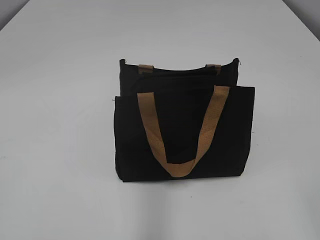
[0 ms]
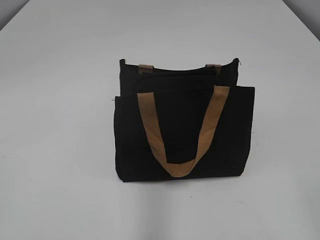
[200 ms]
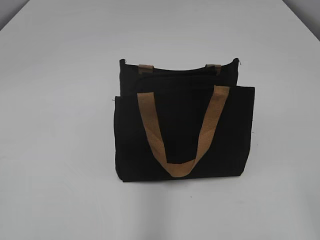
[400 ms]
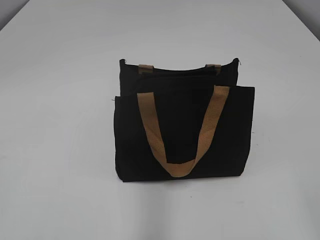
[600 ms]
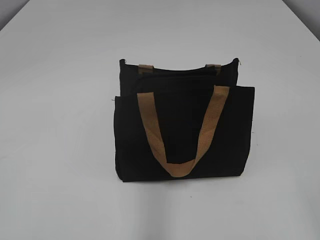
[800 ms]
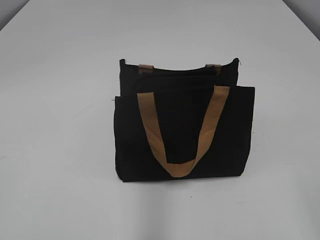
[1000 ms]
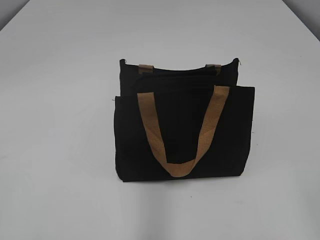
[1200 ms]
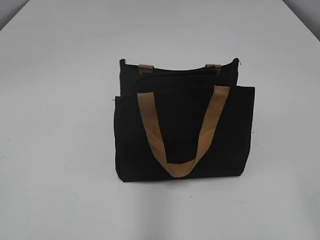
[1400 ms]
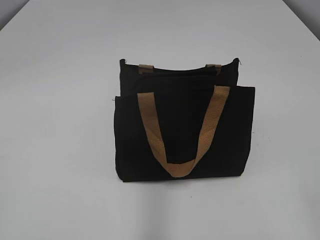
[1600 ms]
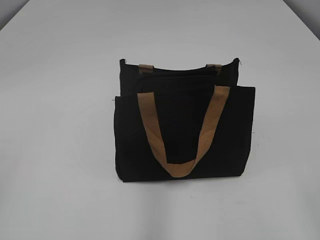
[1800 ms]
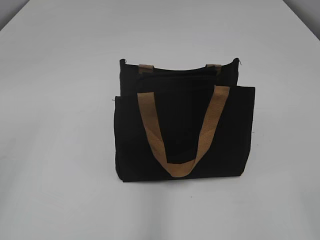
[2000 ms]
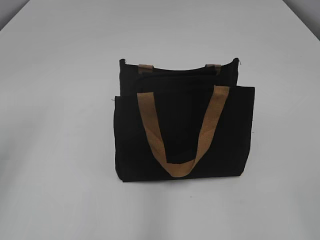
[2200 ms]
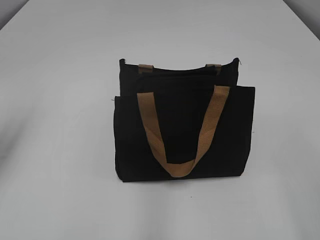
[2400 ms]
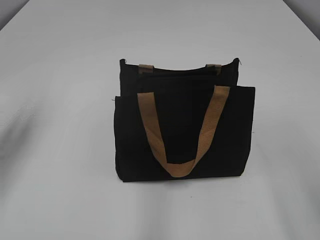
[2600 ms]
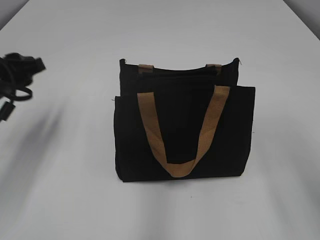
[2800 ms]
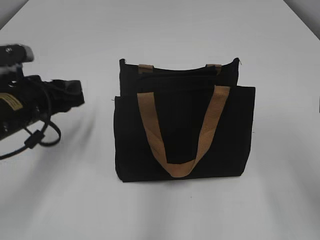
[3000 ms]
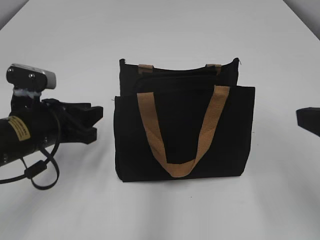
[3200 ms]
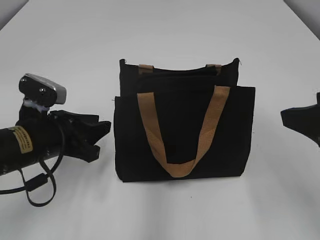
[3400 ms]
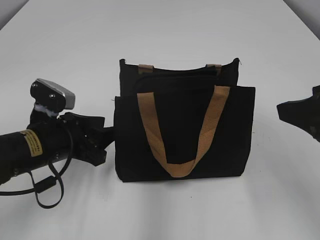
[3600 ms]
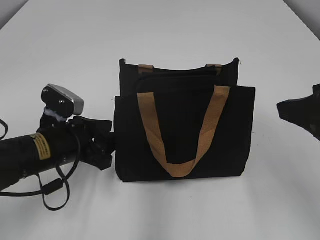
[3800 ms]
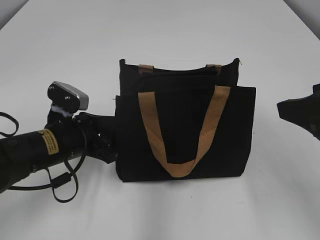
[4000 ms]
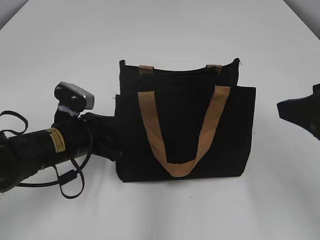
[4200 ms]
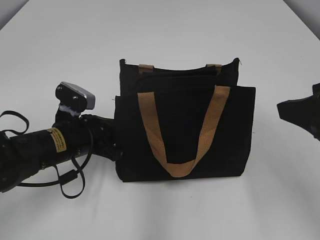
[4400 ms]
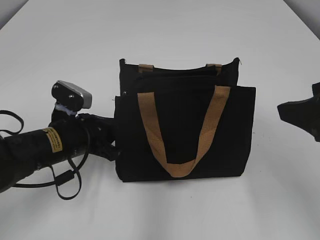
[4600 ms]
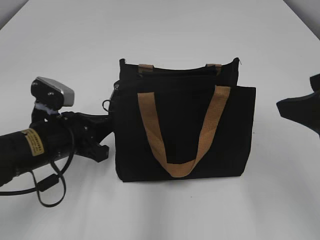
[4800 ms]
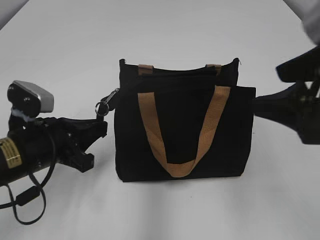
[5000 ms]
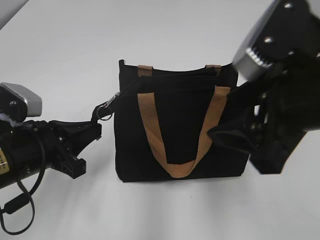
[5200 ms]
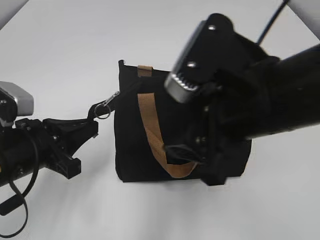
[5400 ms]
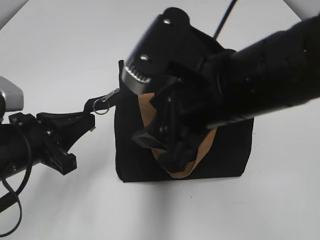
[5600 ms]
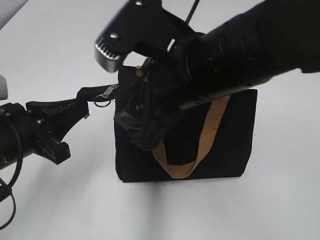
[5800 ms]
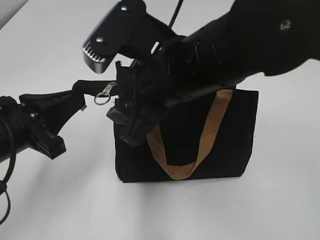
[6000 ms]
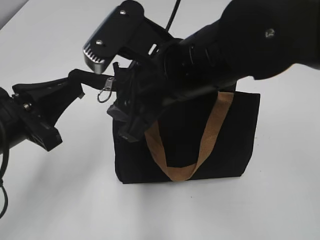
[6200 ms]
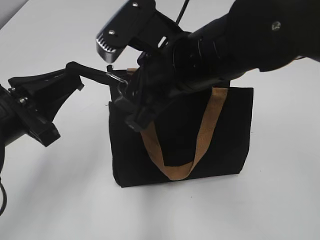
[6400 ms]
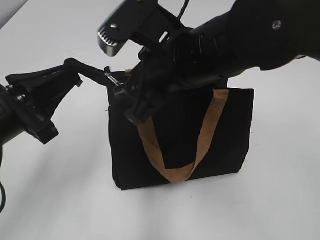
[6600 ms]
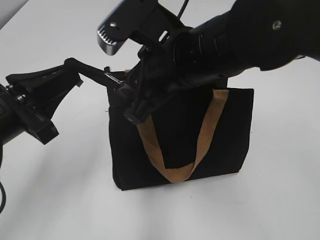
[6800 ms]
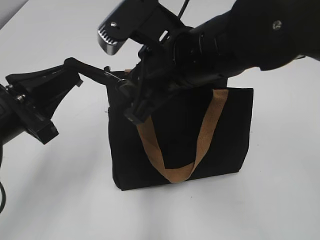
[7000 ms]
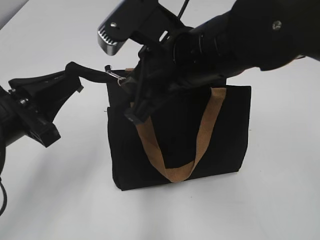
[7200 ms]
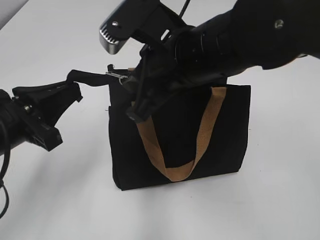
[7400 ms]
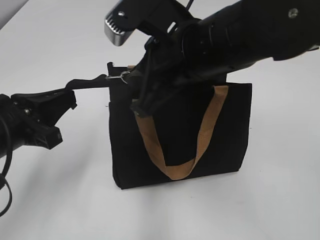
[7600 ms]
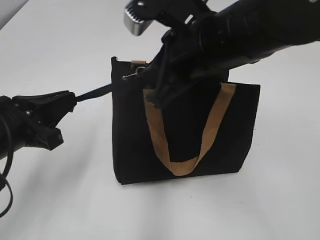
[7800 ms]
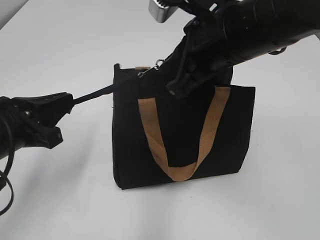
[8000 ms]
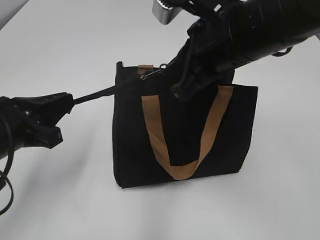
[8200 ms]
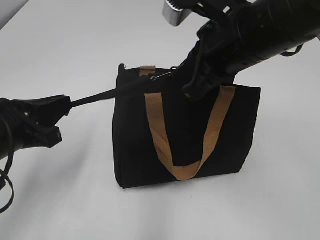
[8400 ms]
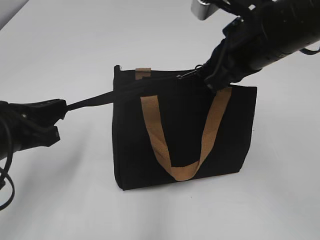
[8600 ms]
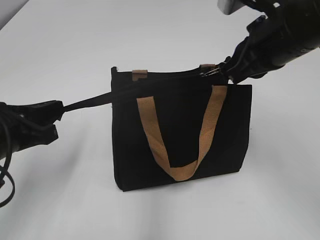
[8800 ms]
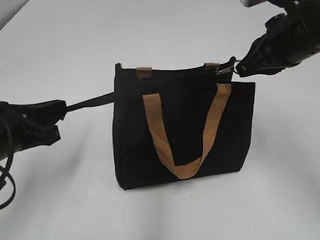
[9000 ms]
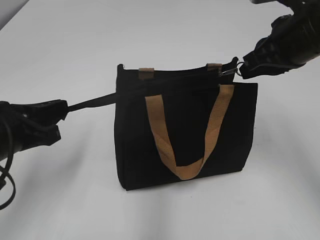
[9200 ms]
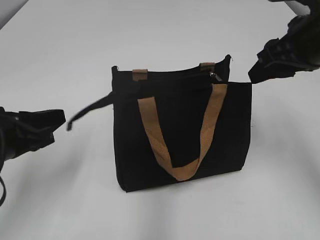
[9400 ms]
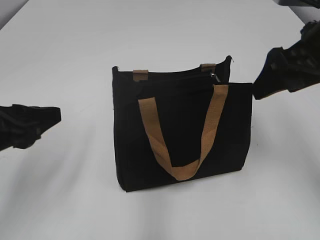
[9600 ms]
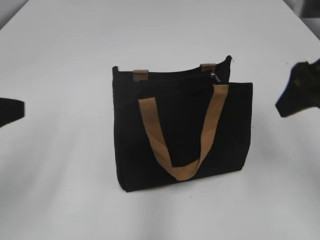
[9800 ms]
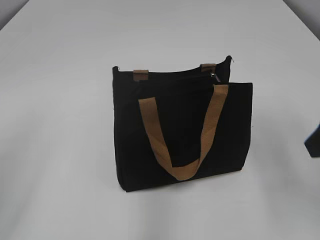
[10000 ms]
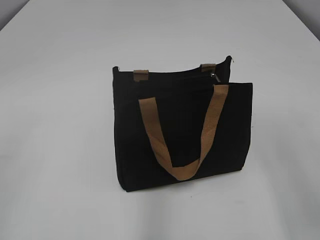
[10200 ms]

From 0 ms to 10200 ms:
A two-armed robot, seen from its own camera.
Step, from 0 ms to 9200 ms: Zip up the bag with your right hand.
From 1400 ms to 3000 ms: The right gripper is displaced forward by approximately 15 cm; the left gripper shifts about 30 cm forward.
From 3000 ms to 4400 ms: The left gripper travels to the right and downward by roughly 10 cm, and opens, then closes once more; the right gripper goes approximately 5 cm forward.
From 4400 ms to 5800 ms: The right gripper moves to the left, approximately 20 cm, while the left gripper is displaced backward and upward by approximately 10 cm, and closes its fingers.
From 5800 ms to 7200 ms: The right gripper moves some 5 cm, and closes its fingers.
From 7200 ms to 8800 ms: The right gripper travels to the right by about 10 cm.
From 8800 ms to 10200 ms: The left gripper heads upward, backward and to the left, covering roughly 20 cm, and opens up, while the right gripper travels backward and to the right by some 15 cm, and opens its fingers.

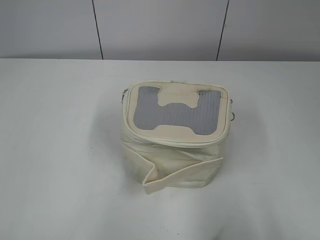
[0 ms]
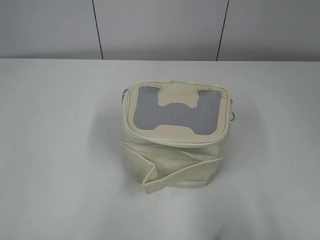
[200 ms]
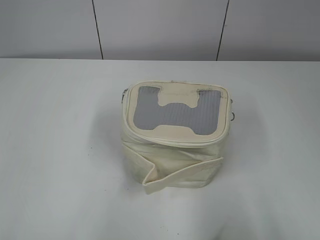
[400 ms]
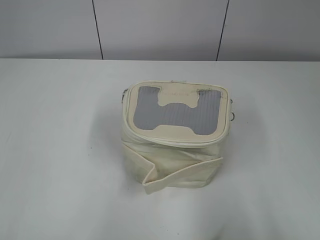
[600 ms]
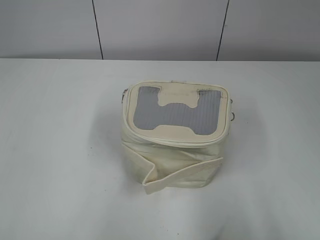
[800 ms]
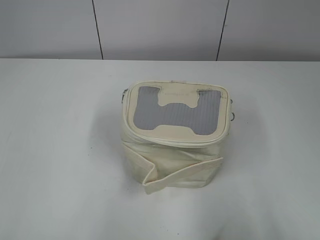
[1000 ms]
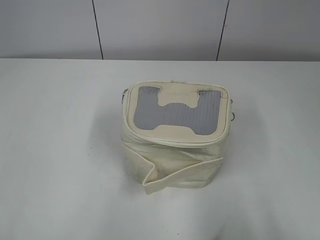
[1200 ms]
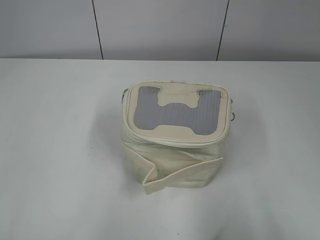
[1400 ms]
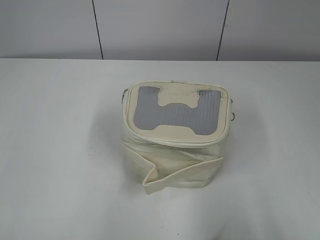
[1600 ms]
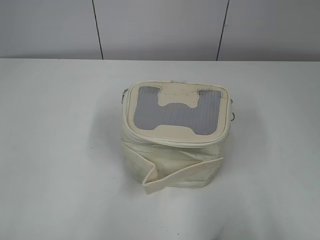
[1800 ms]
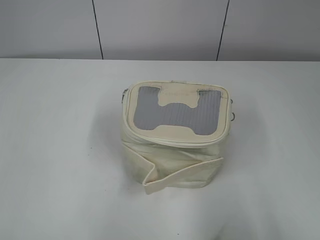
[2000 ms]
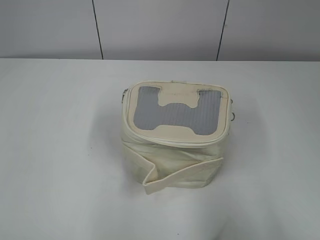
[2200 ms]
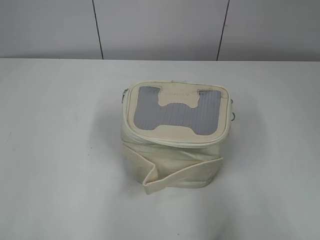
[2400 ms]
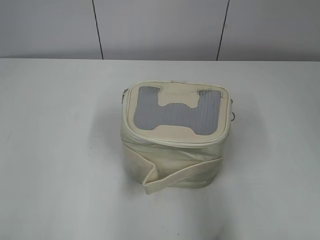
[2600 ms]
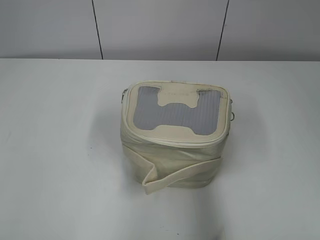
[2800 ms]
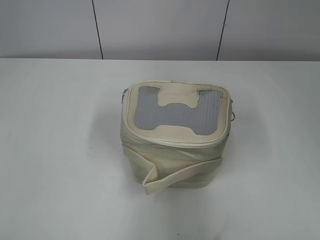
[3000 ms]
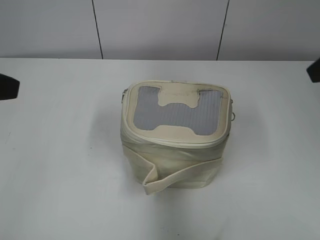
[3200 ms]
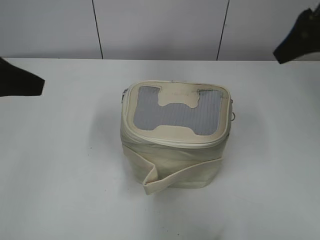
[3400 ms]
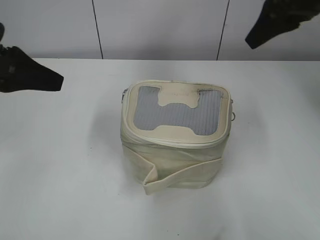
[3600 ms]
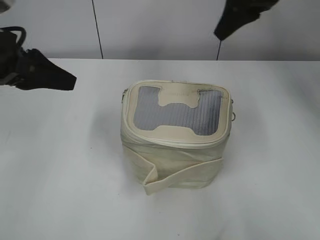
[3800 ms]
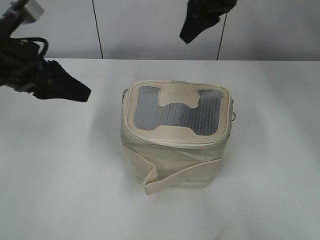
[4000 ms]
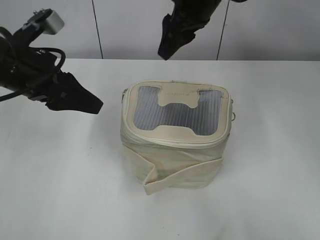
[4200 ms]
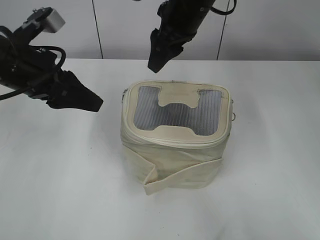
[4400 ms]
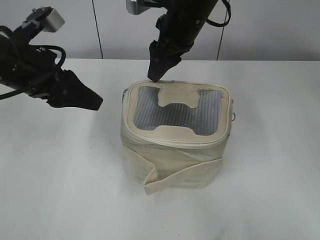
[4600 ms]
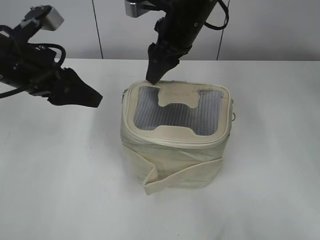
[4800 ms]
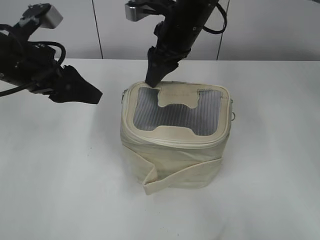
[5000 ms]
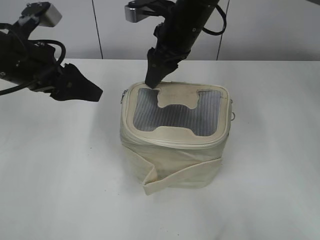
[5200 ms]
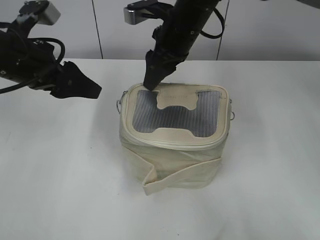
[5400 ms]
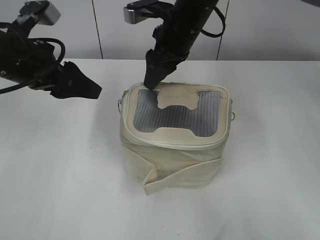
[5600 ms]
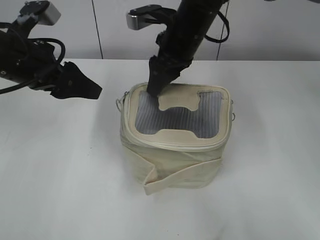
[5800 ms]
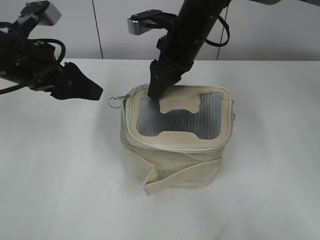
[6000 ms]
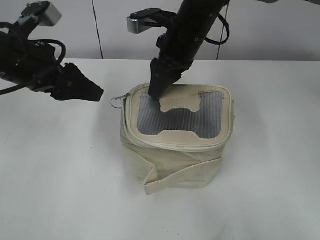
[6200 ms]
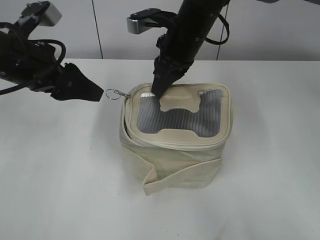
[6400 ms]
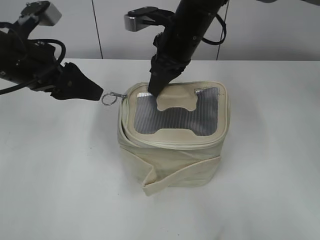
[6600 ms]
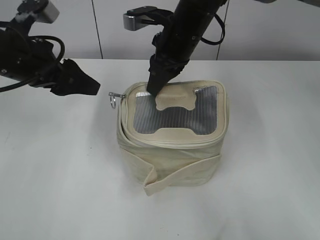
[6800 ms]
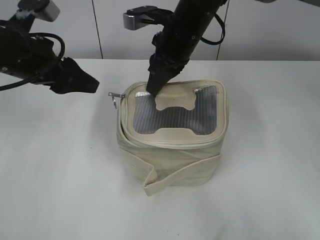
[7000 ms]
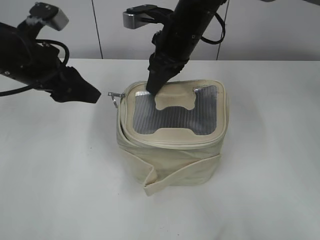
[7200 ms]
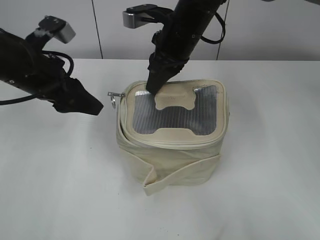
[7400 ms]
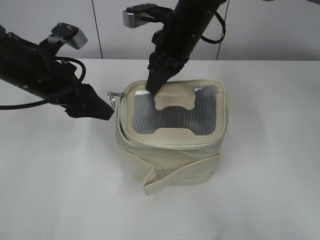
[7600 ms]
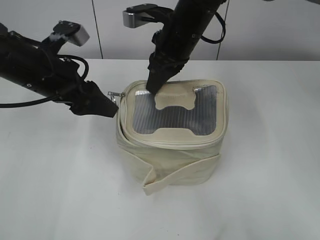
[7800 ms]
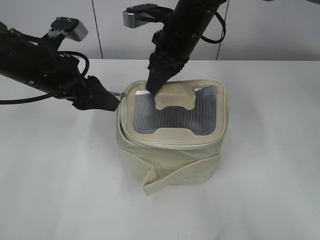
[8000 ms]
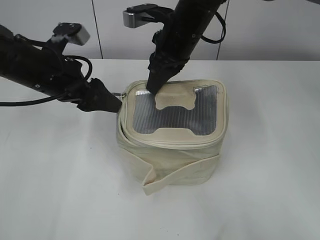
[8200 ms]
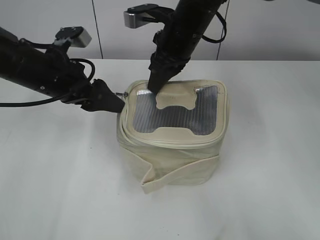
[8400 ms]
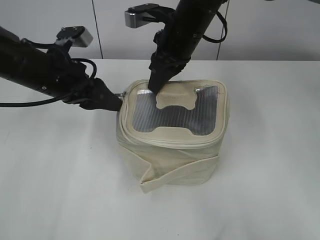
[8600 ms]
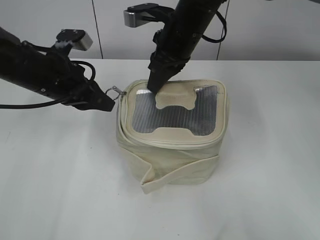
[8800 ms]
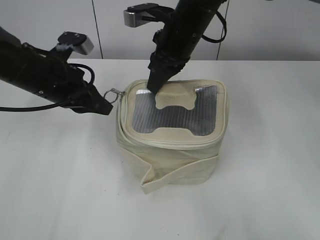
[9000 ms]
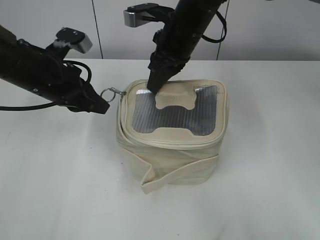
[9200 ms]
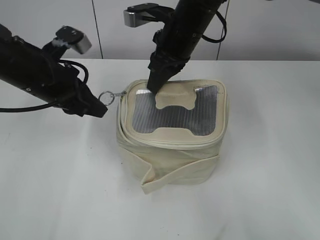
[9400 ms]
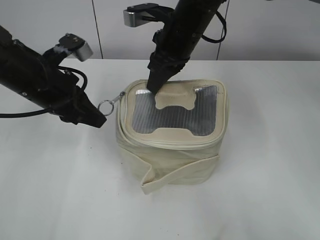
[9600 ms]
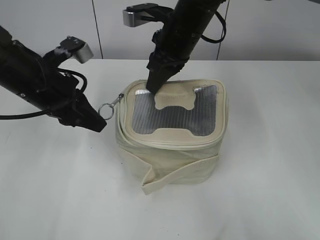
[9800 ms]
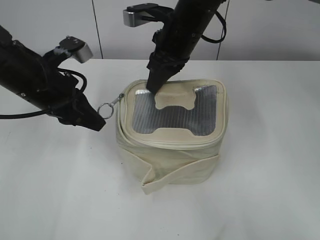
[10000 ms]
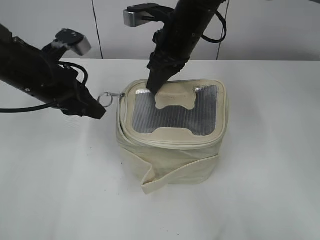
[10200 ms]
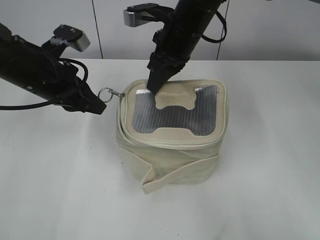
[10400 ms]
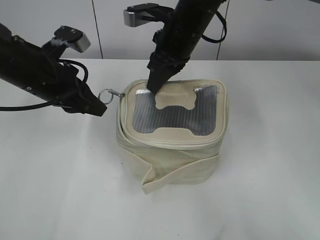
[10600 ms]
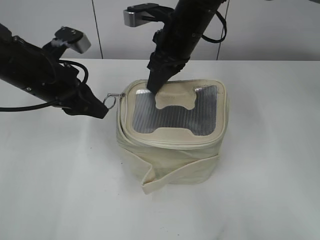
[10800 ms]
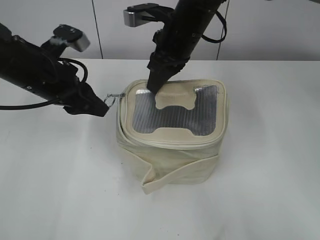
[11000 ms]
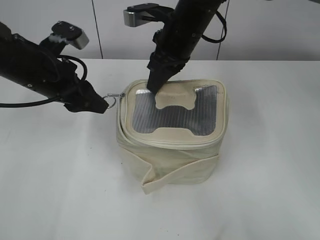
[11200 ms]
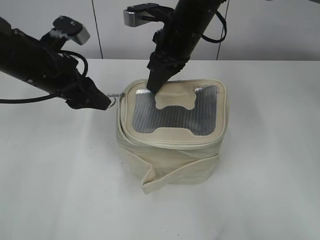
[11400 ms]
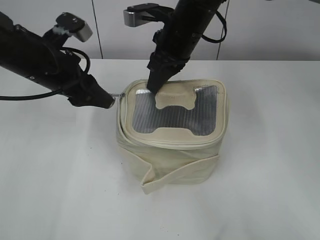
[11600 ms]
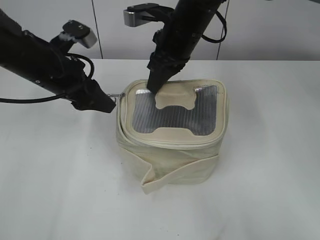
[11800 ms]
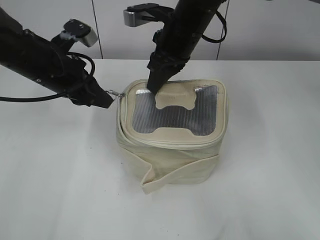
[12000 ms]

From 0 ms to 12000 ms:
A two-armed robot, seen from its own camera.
From 1600 ms to 3000 ms: Both grippers travel together forward, approximately 15 cm.
From 3000 ms to 4400 ms: The left gripper is displaced forward, downward and to the right by about 20 cm; the right gripper is displaced to the left and forward by roughly 30 cm.
From 4400 ms to 6000 ms: There are only small adjustments of the grippers.
From 6000 ms to 7600 ms: The right gripper closes up.
From 7600 ms to 9000 ms: The left gripper closes its fingers.
From 9000 ms to 10400 ms: The grippers stay close to where they were, moving slightly.
From 10400 ms to 12000 ms: The left gripper opens, then closes once more.
